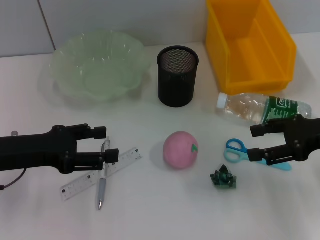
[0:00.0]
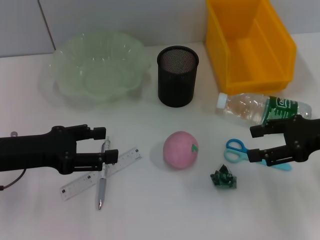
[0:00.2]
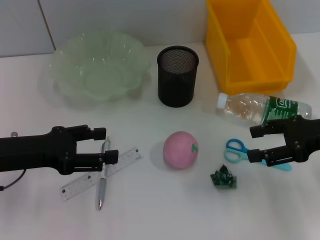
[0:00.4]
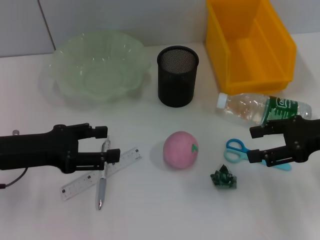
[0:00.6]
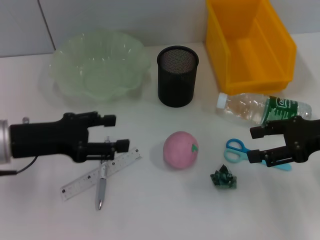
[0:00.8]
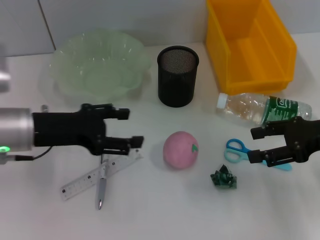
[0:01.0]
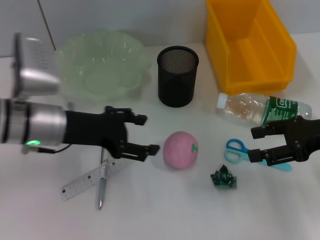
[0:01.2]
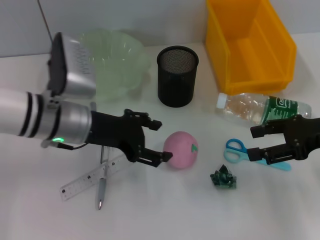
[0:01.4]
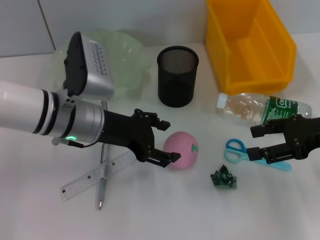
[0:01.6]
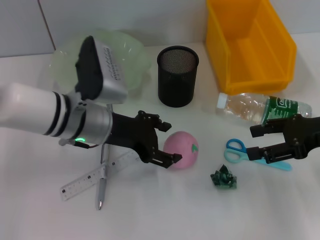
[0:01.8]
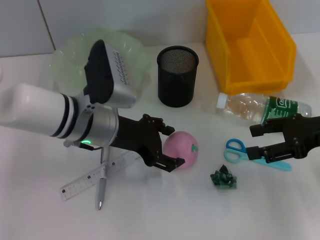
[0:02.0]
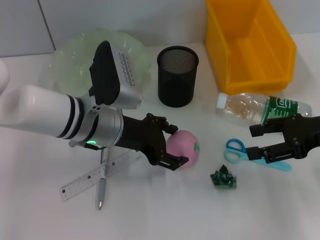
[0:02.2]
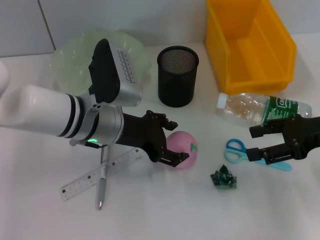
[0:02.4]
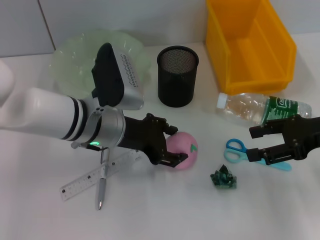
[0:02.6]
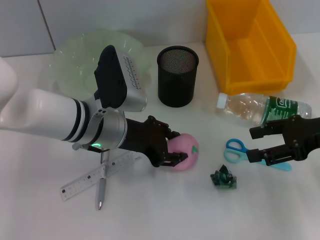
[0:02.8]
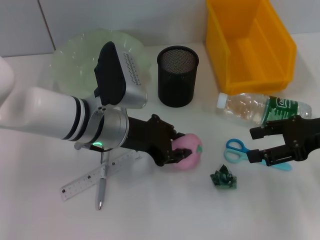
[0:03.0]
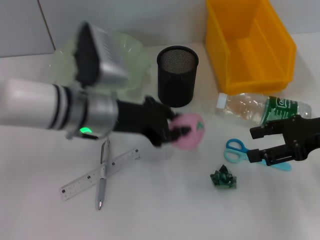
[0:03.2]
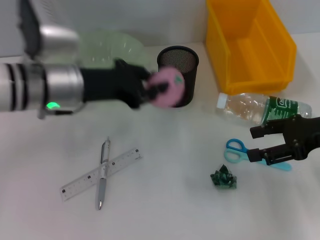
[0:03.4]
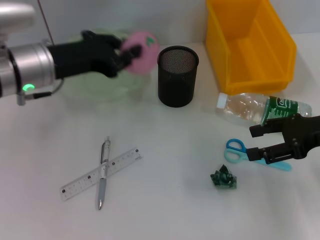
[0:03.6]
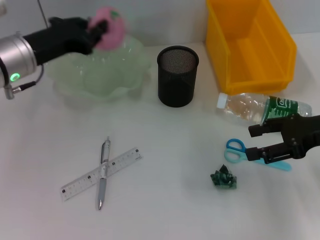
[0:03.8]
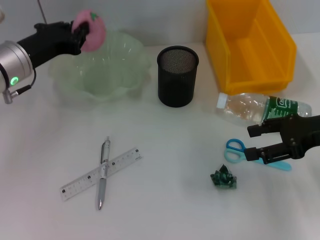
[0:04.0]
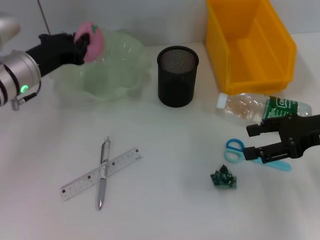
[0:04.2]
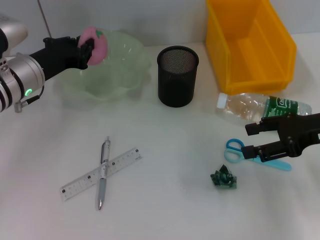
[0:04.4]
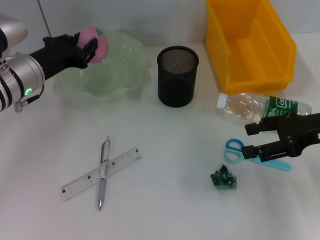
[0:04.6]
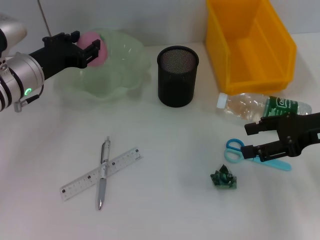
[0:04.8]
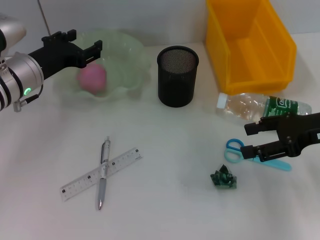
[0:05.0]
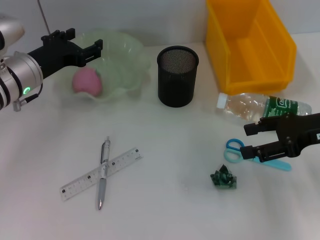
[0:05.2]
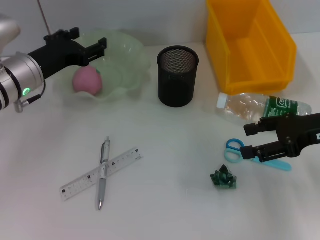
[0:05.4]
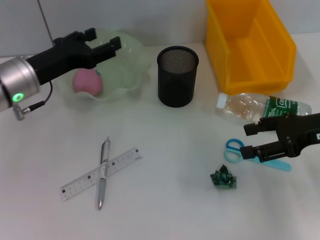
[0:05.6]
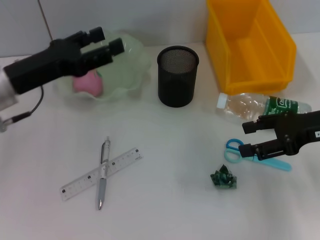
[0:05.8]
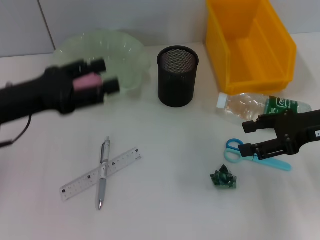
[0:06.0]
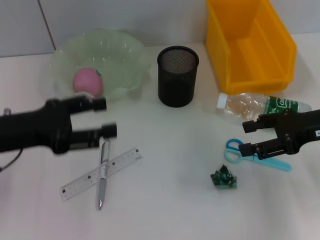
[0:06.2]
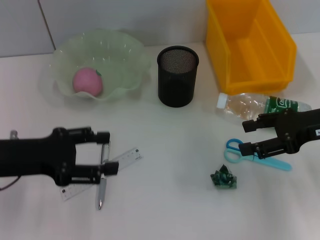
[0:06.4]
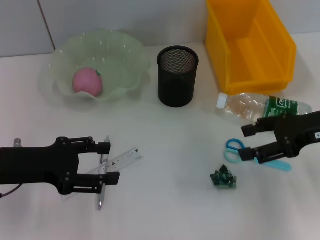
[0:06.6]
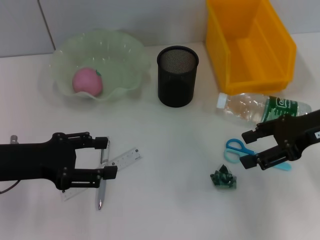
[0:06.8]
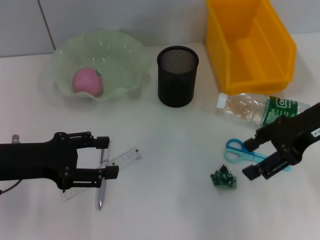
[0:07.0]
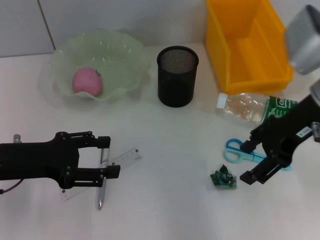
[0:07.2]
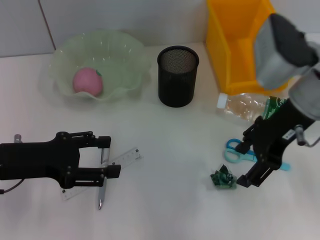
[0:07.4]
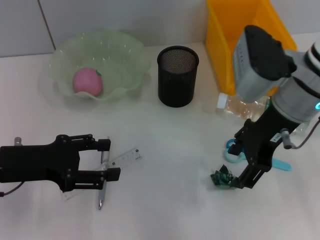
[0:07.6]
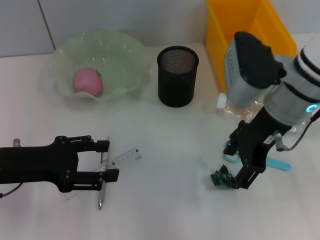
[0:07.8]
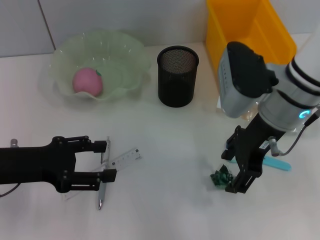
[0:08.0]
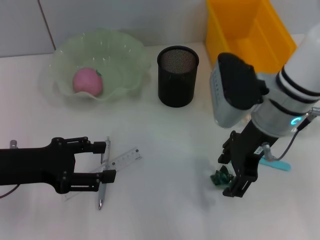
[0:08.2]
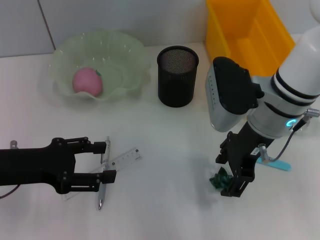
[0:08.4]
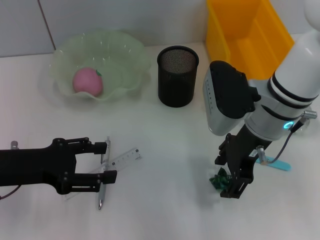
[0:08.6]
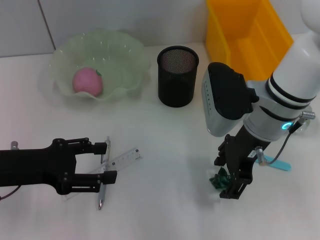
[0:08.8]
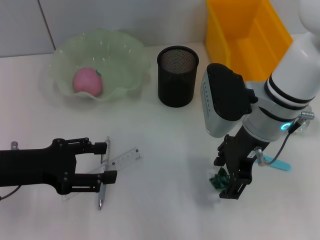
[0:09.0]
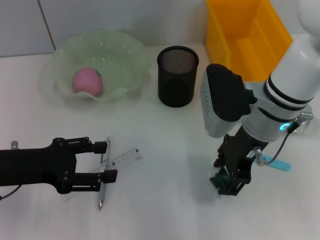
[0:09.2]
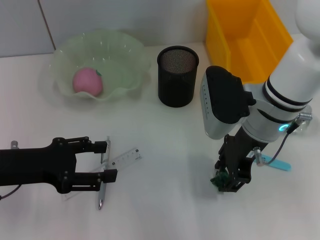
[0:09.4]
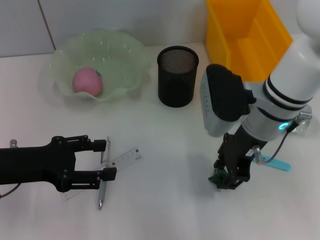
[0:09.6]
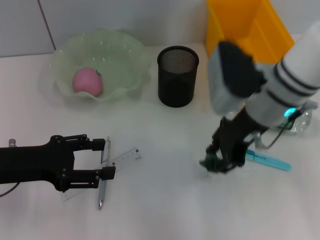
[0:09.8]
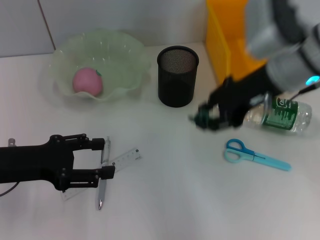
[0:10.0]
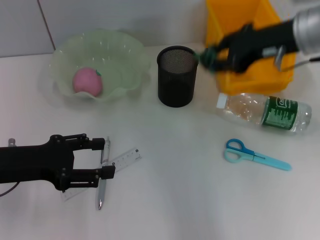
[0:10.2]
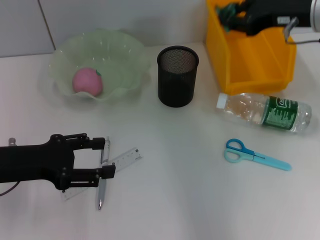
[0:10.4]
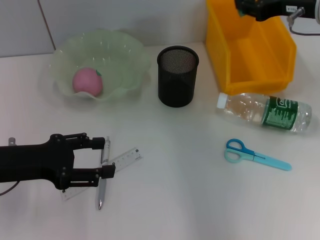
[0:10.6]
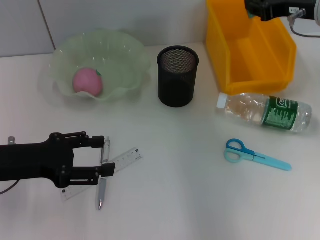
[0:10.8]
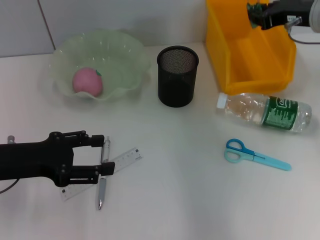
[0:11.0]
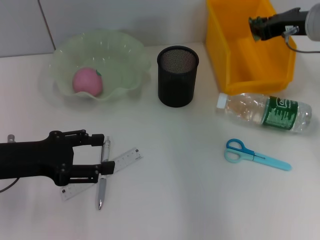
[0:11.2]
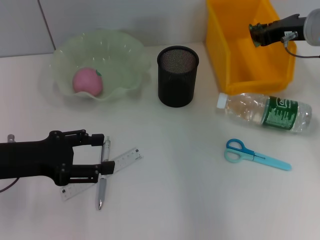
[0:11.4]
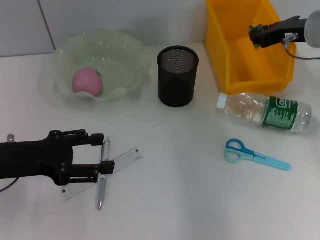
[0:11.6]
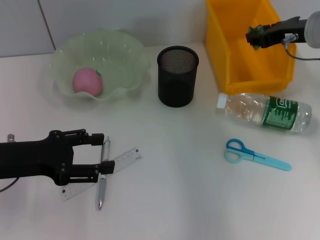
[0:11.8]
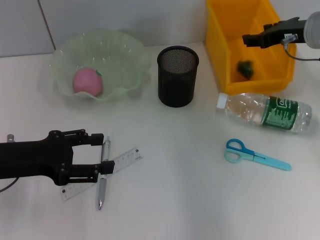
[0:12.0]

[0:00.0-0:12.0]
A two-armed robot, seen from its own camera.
Step, 0:00.0 to 0:02.8: Grab the peach with the left hand.
Step, 0:03.0 to 0:05.2: Place the peach into the fruit bowl with the left hand.
Step, 0:05.4 to 0:09.2: Grab the plastic with the right hand.
0:00.0 to 0:01.6: The left gripper travels to the right and forward by some 15 cm.
0:01.6 to 0:03.0: The grippers move only a little.
0:03.0 to 0:04.4: The left gripper shifts approximately 15 cm to the left and forward, and closes its fingers.
0:04.4 to 0:06.0: The left gripper goes approximately 10 cm backward, and opens its fingers.
0:06.0 to 0:07.6: The right gripper is displaced to the left and upward by approximately 15 cm.
0:07.6 to 0:09.0: The right gripper shifts by some 5 cm.
0:09.0 to 0:10.4: The right gripper is displaced to the right and upward by about 15 cm.
0:10.4 to 0:12.0: The right gripper shifts some 5 cm downward.

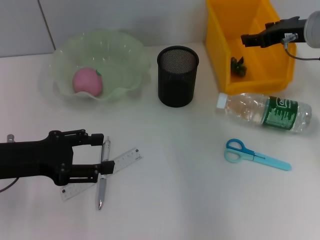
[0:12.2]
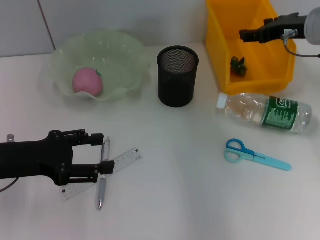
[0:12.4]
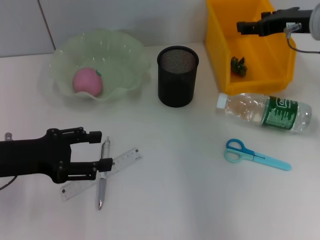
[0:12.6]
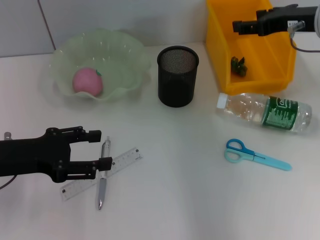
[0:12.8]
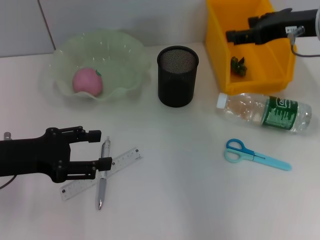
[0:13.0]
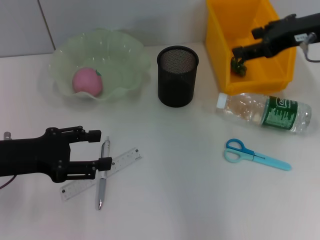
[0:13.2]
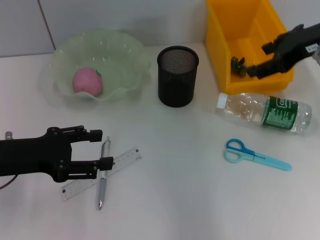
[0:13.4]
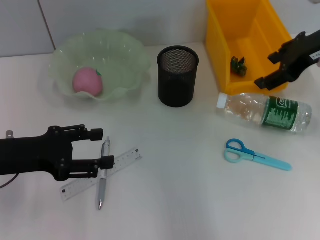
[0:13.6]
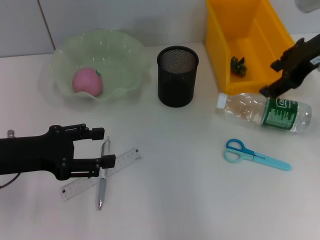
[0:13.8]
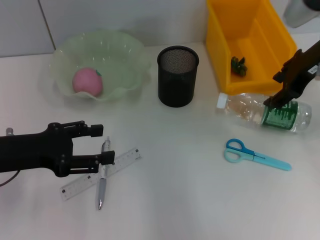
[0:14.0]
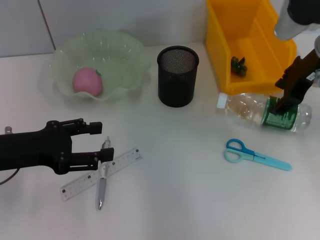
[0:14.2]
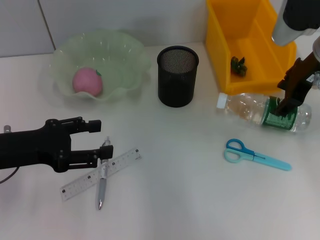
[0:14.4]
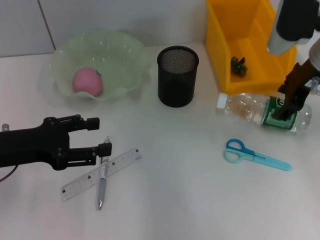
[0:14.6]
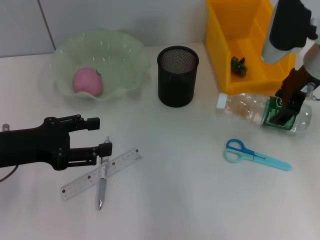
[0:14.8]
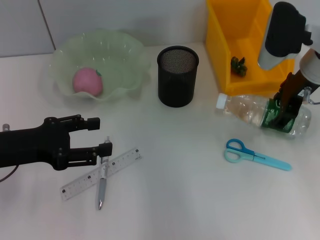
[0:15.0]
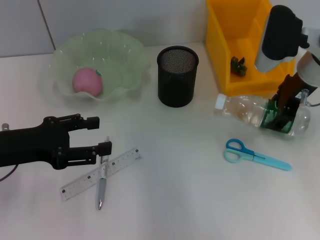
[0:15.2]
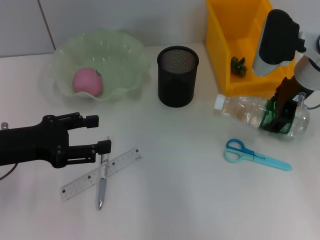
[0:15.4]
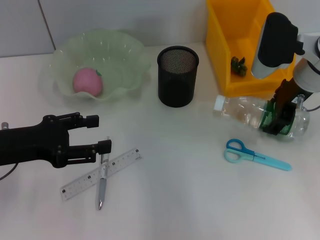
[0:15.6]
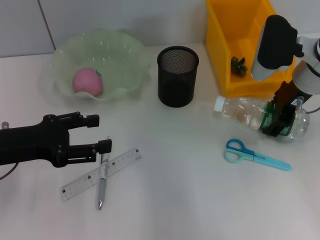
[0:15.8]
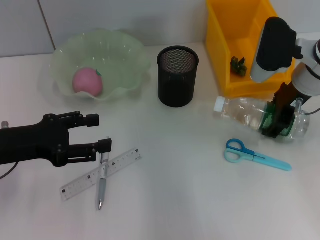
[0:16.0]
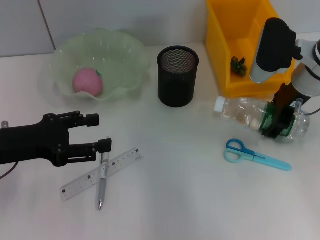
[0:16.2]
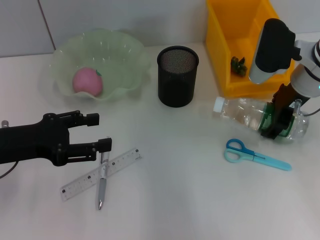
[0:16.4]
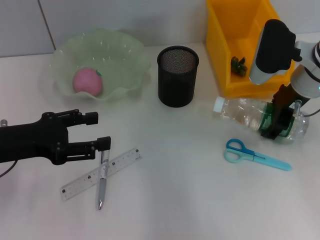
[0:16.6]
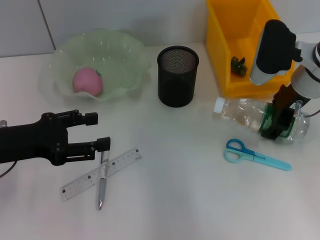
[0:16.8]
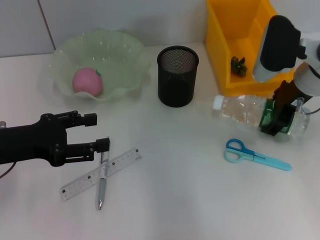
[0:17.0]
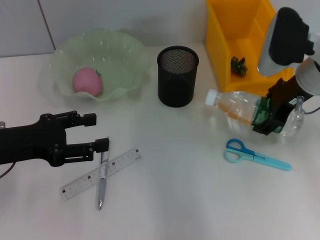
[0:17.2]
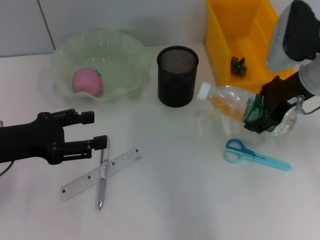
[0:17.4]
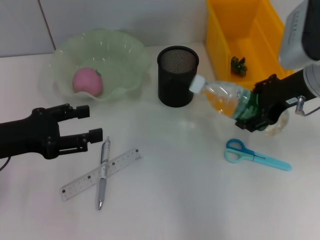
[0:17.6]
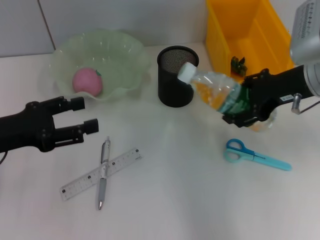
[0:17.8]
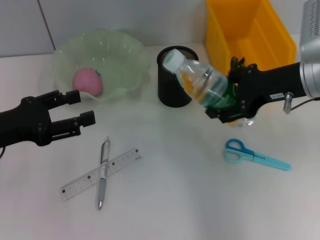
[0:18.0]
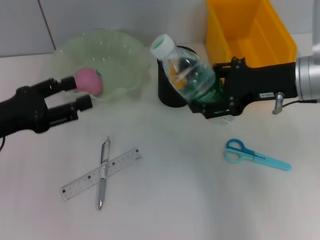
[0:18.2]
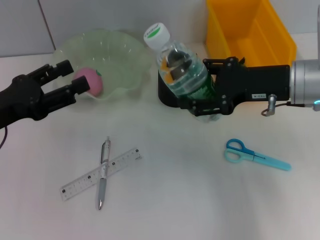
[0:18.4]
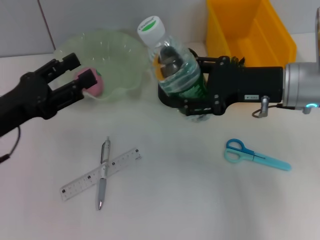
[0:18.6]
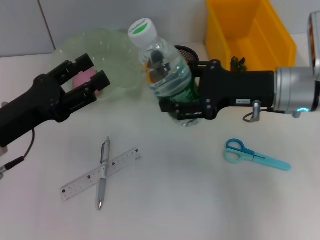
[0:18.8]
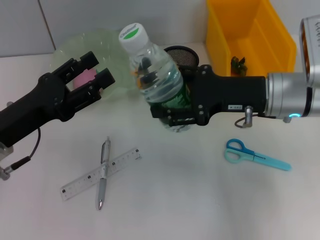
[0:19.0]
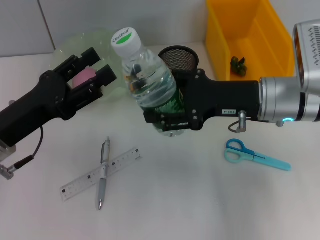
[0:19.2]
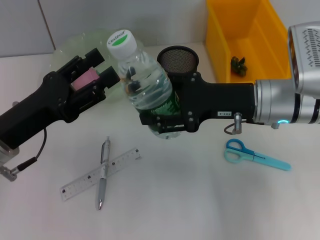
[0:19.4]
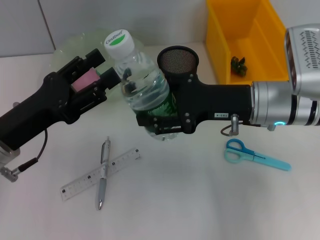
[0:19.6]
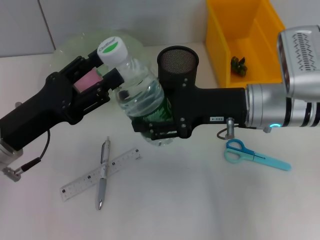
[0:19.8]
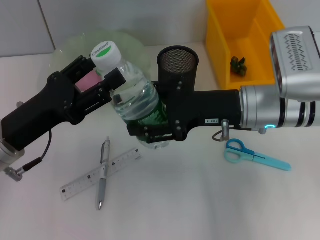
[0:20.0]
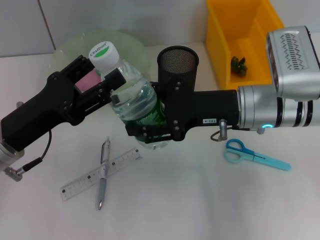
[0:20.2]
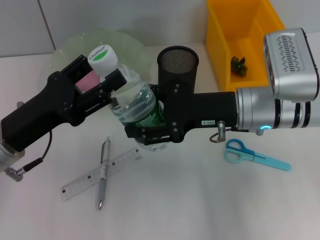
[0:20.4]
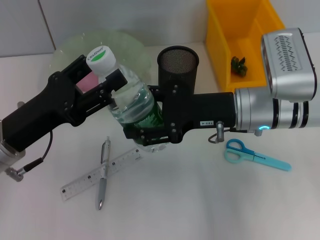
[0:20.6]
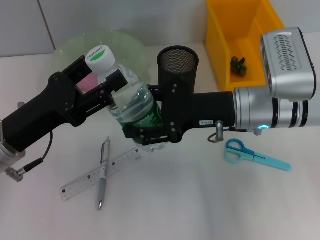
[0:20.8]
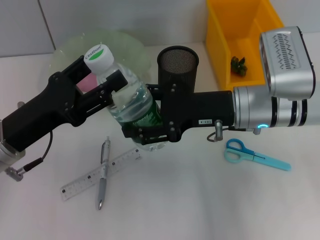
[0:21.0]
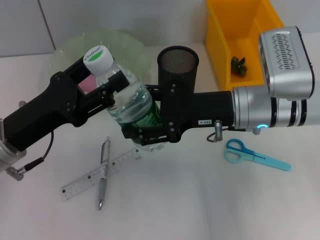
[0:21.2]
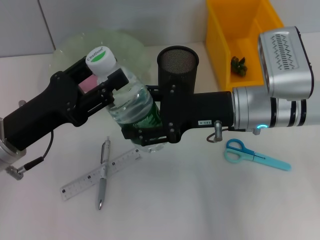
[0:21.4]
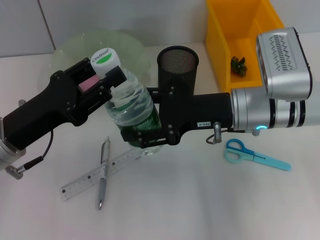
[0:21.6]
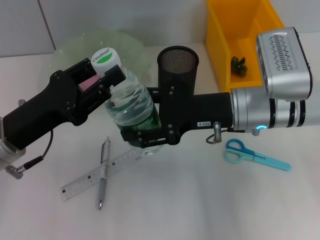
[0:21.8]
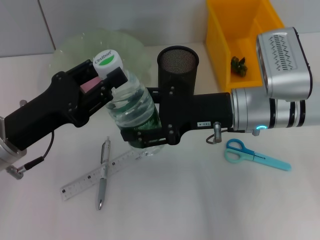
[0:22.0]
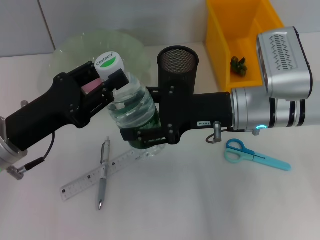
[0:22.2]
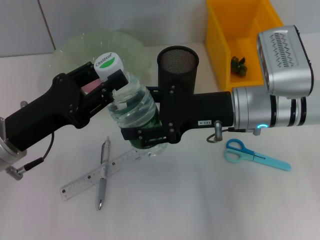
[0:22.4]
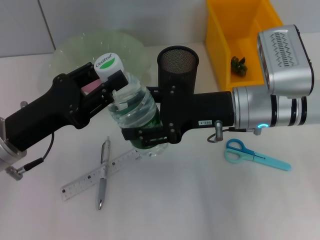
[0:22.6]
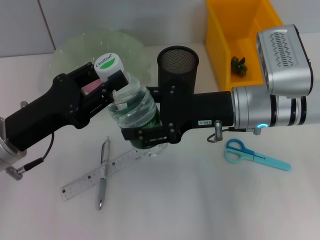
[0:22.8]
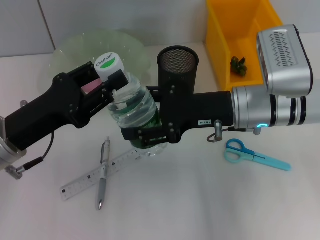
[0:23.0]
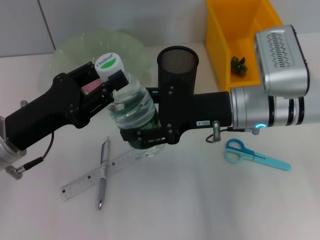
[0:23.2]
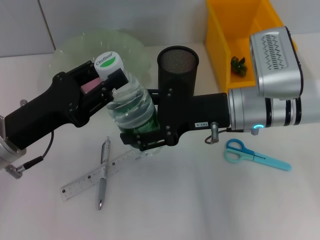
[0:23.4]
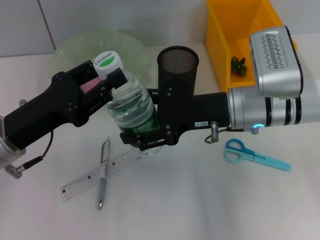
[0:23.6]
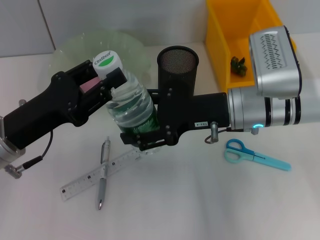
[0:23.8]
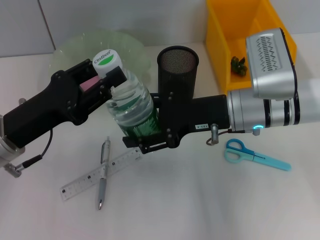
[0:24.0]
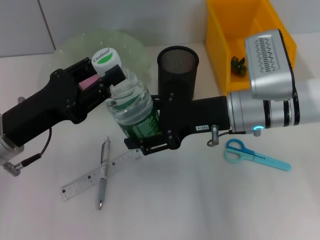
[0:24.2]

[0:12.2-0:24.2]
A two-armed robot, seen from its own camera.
Step, 0:12.4 to 0:16.6: Grab the water bottle with the right hand.
0:12.2 to 0:13.8: The right gripper is displaced upward by about 5 cm.
0:13.8 to 0:15.2: The right gripper goes about 5 cm downward.
0:15.2 to 0:16.6: The grippers stay close to where they were, moving slightly.
0:16.6 to 0:18.2: The right gripper shifts approximately 5 cm backward.
0:18.2 to 0:19.8: The right gripper heads to the left, covering about 5 cm; the left gripper travels to the right by some 5 cm.
0:19.8 to 0:21.2: The grippers stay close to where they were, moving slightly.
0:21.2 to 0:22.6: The left gripper closes up.
0:22.6 to 0:24.2: The grippers make only small movements.
